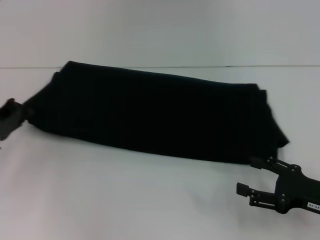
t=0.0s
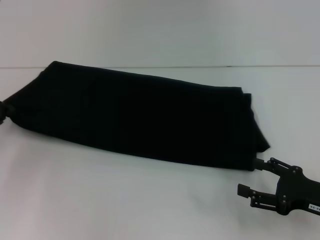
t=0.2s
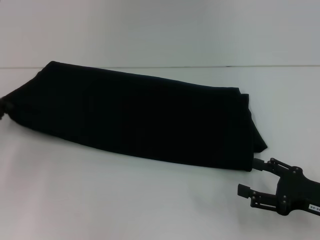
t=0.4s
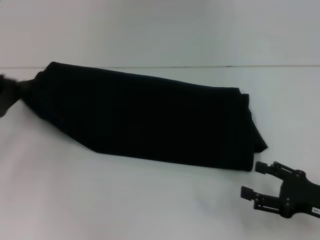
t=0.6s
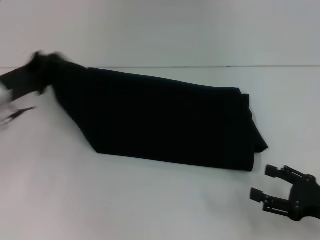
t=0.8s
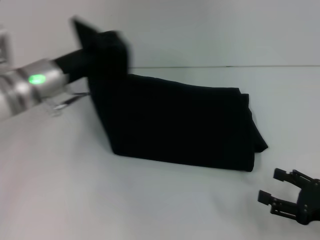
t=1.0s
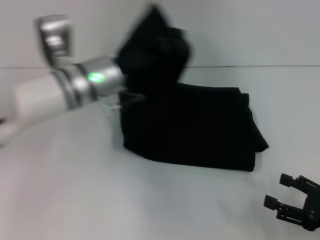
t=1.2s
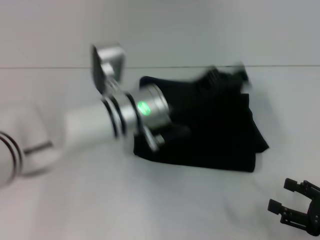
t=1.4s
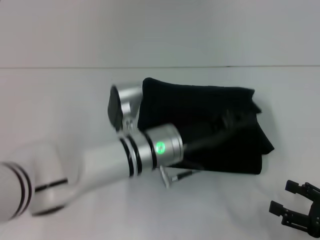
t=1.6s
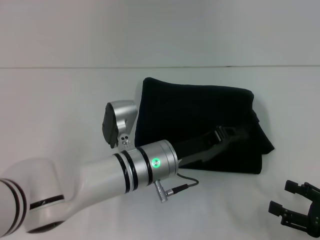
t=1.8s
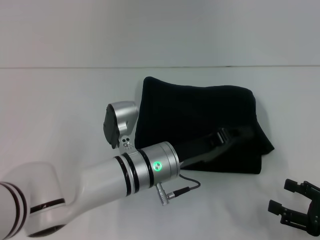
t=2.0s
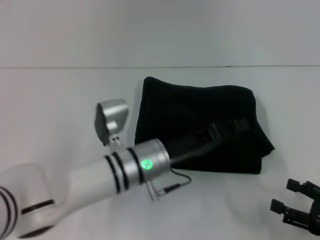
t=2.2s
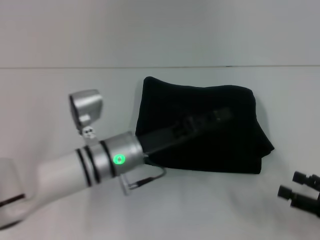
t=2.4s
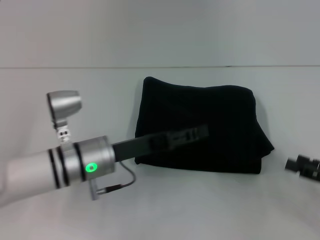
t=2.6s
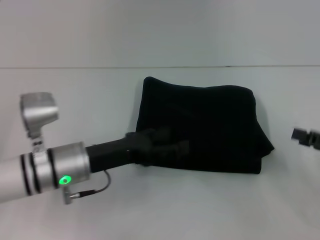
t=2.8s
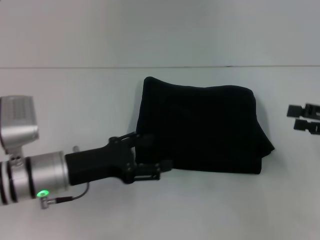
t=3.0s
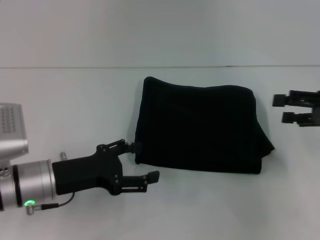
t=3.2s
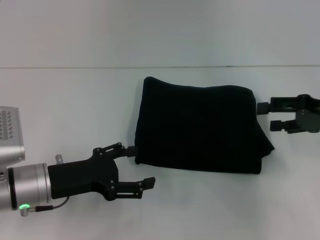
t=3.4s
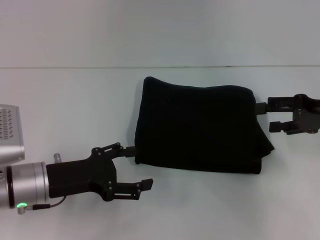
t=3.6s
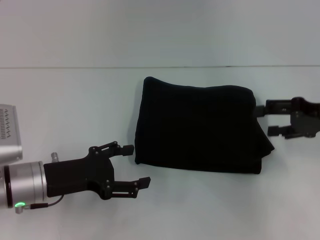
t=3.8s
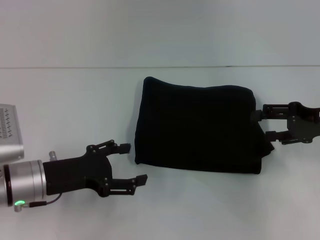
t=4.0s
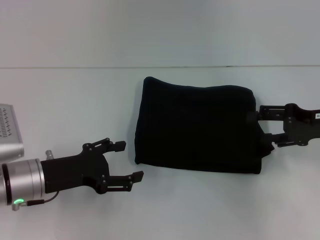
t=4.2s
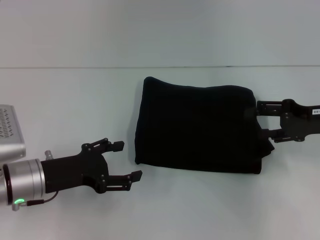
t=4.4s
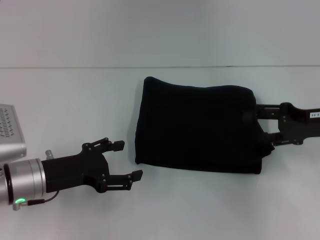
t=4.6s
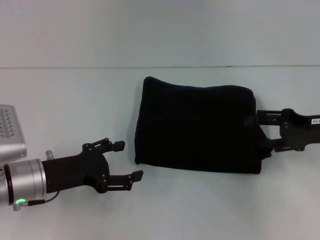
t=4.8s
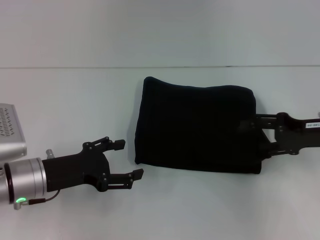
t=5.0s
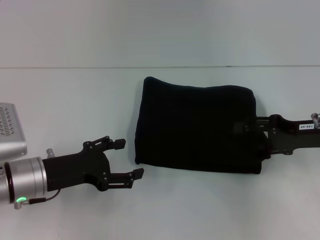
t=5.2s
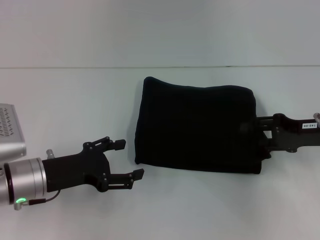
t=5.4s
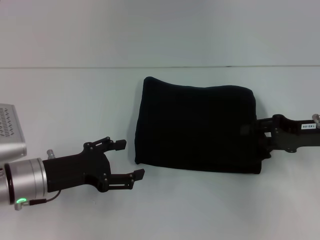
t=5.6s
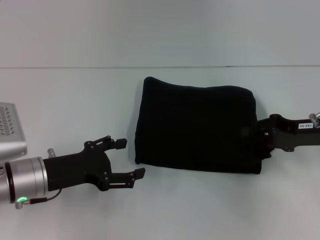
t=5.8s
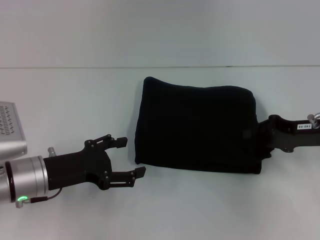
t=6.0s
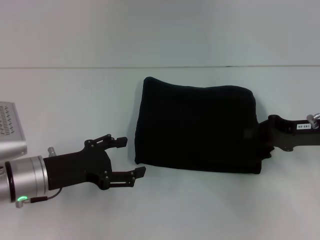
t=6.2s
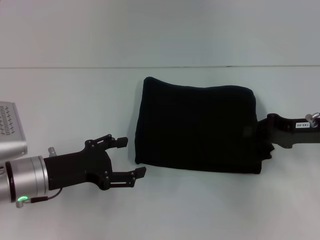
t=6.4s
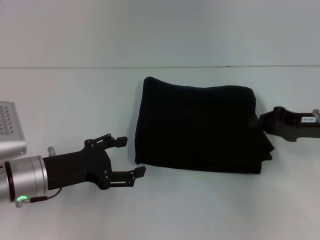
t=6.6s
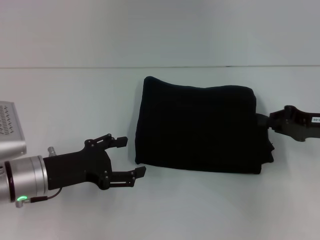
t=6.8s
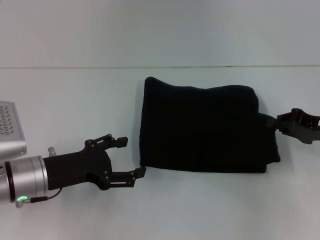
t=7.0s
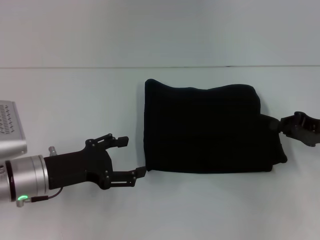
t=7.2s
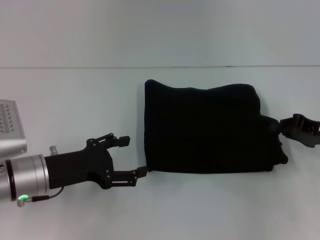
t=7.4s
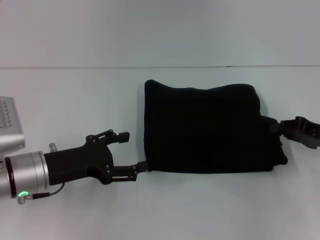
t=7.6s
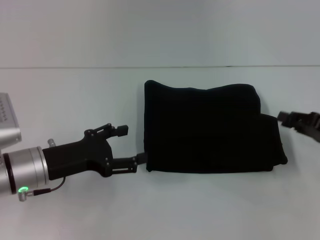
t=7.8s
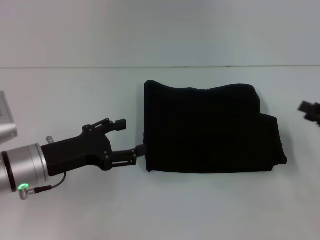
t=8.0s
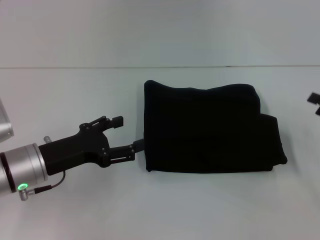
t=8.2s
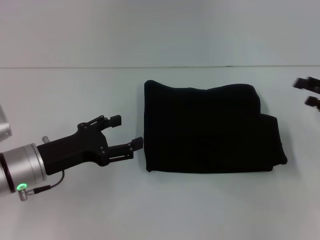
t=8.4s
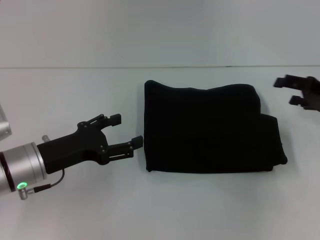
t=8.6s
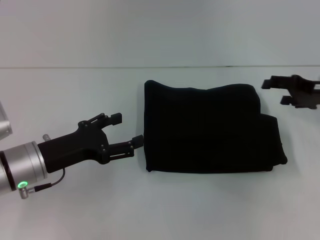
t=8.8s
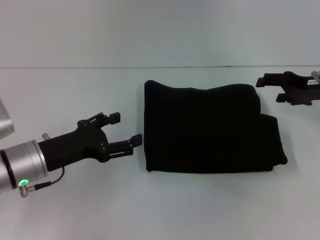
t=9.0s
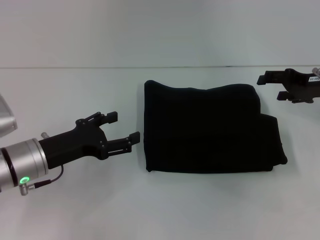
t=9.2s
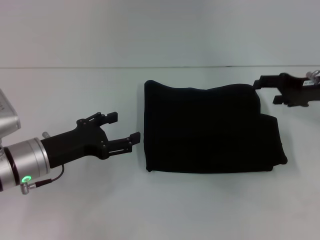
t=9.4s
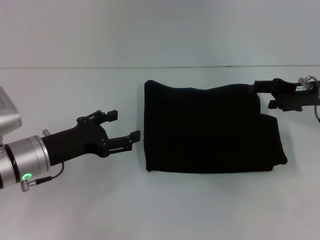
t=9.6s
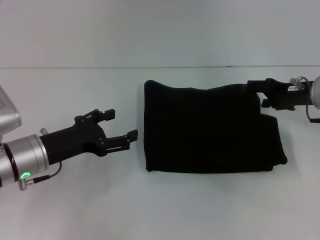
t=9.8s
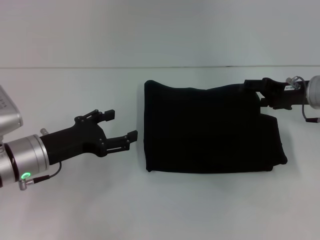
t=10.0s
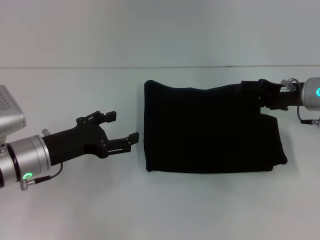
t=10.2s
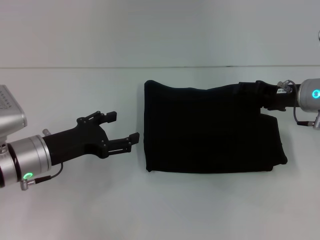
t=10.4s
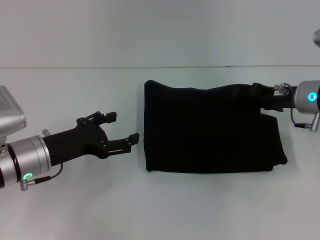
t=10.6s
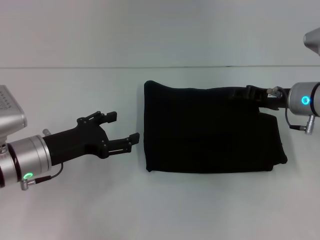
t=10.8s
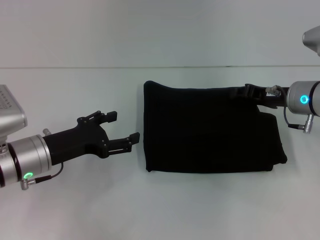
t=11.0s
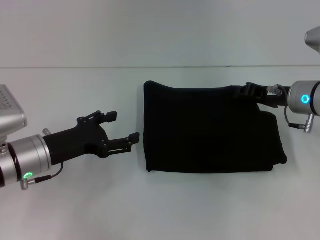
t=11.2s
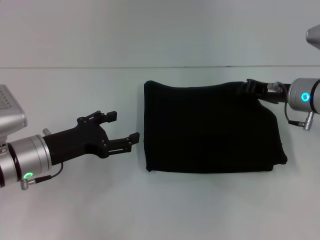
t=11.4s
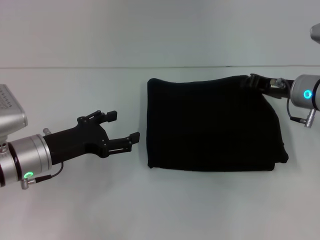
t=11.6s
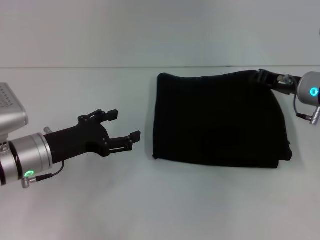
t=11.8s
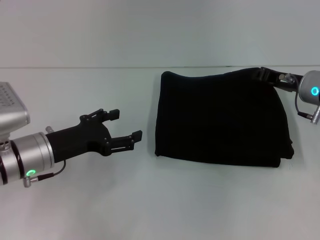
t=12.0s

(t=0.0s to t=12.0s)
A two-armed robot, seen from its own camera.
Step, t=0.0s - t=2.0s: Fold the clothes with your left hand.
t=0.0s - t=1.6s: The left gripper goes approximately 30 cm to the right. The right gripper moves some 5 cm.
t=1.6s - t=3.0s: The left gripper goes roughly 15 cm to the left, and opens. Meanwhile the right gripper is displaced forward and upward by roughly 15 cm.
t=3.0s - t=4.4s: The right gripper heads to the left, covering approximately 5 cm.
t=4.4s - t=6.0s: The right gripper closes up.
t=6.0s - t=7.6s: The grippers make only small movements.
t=7.6s - t=9.0s: The right gripper moves forward and upward, approximately 10 cm, and opens its fingers.
t=9.0s - t=10.4s: The right gripper changes place by about 5 cm.
t=10.4s - t=12.0s: The right gripper closes up.

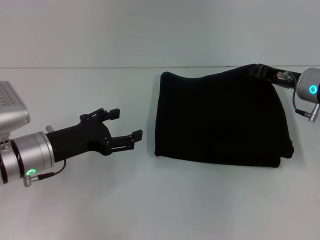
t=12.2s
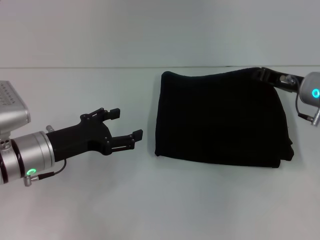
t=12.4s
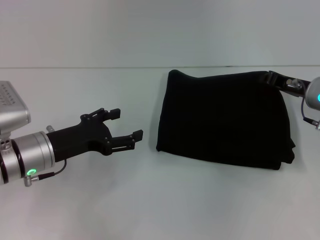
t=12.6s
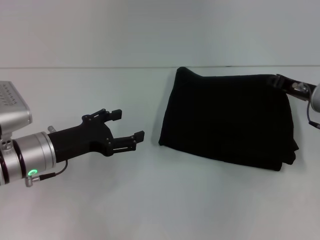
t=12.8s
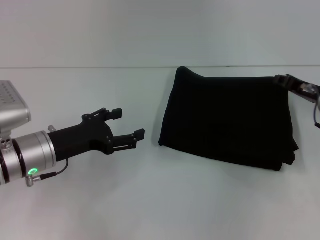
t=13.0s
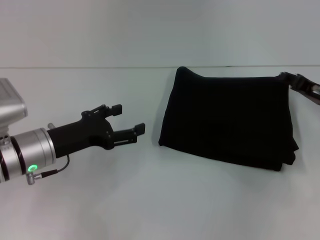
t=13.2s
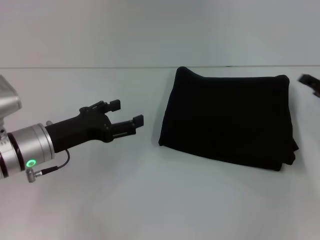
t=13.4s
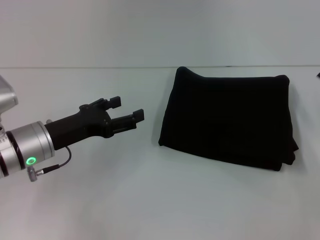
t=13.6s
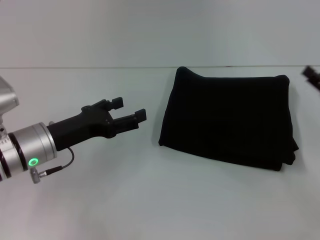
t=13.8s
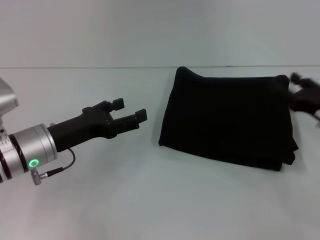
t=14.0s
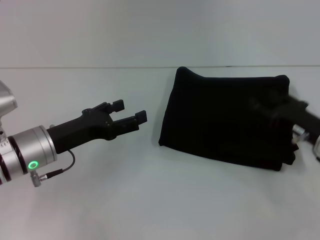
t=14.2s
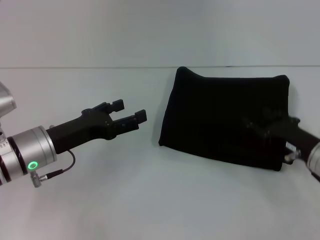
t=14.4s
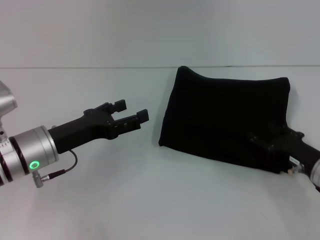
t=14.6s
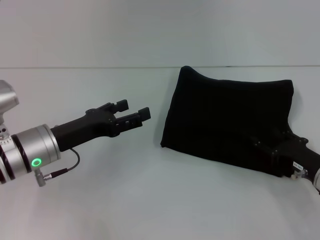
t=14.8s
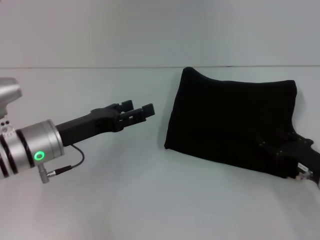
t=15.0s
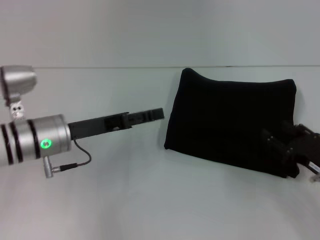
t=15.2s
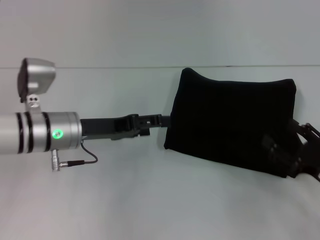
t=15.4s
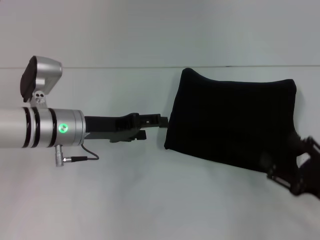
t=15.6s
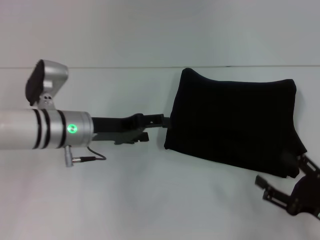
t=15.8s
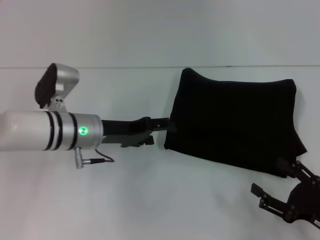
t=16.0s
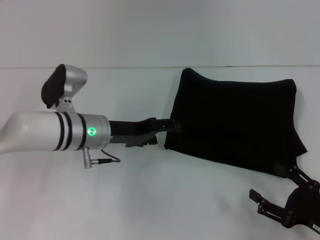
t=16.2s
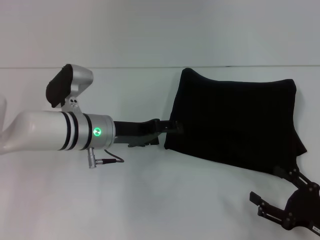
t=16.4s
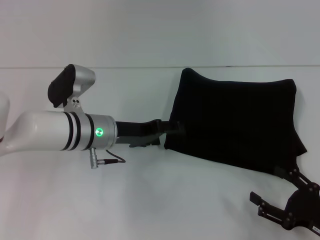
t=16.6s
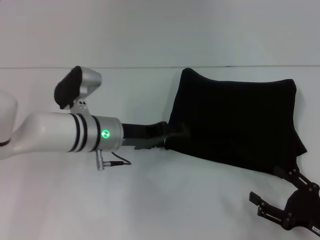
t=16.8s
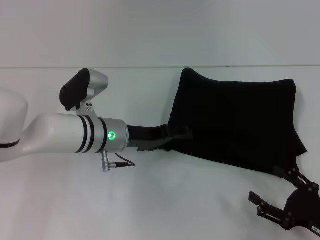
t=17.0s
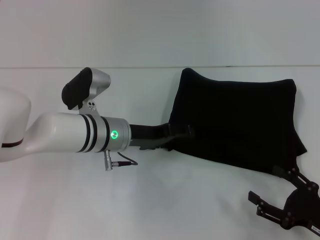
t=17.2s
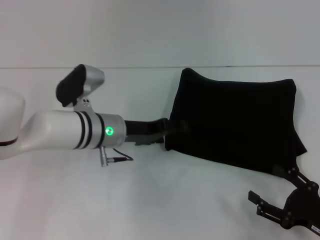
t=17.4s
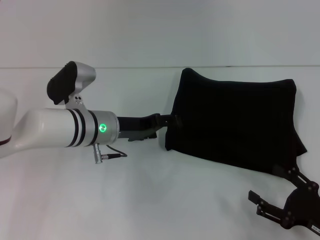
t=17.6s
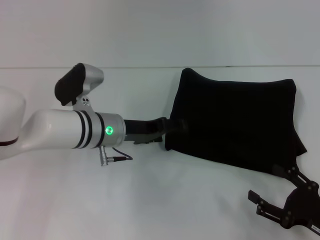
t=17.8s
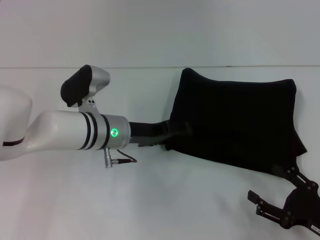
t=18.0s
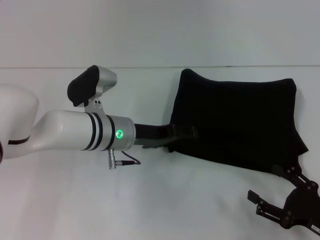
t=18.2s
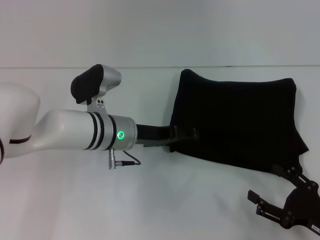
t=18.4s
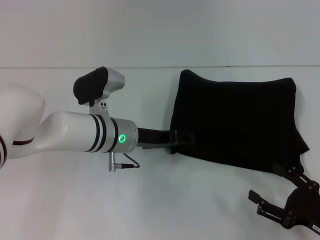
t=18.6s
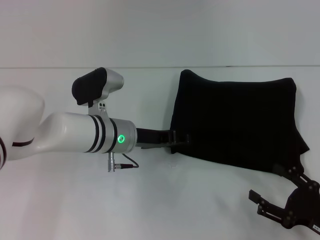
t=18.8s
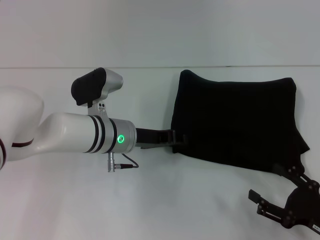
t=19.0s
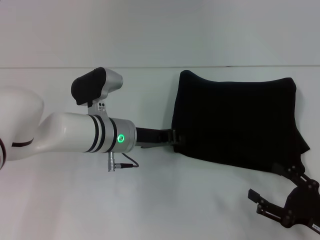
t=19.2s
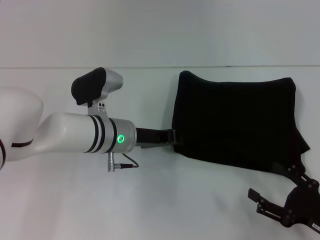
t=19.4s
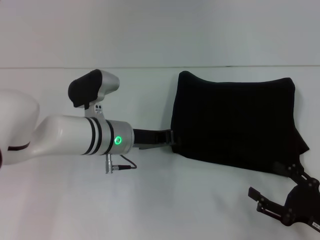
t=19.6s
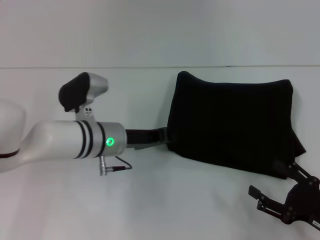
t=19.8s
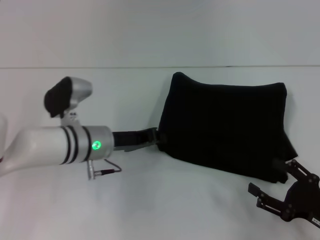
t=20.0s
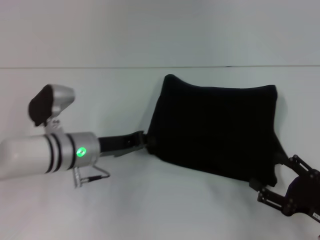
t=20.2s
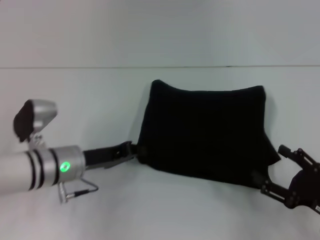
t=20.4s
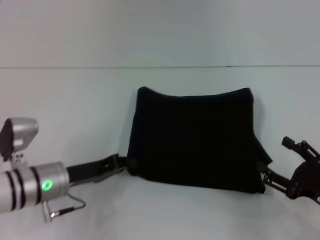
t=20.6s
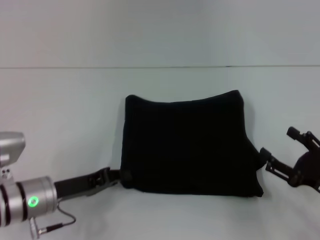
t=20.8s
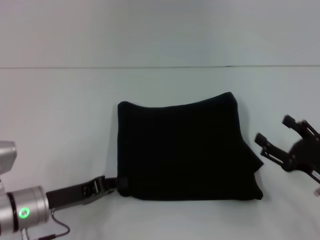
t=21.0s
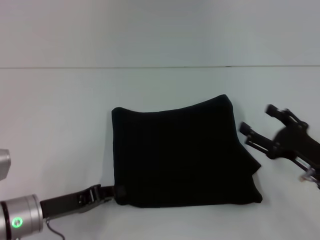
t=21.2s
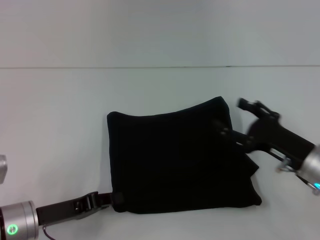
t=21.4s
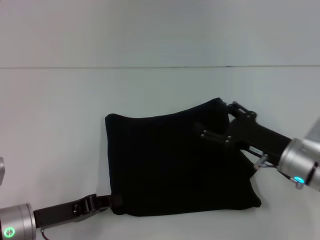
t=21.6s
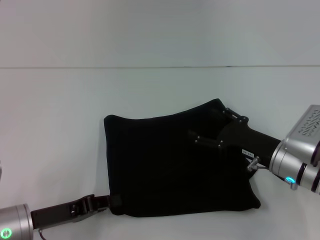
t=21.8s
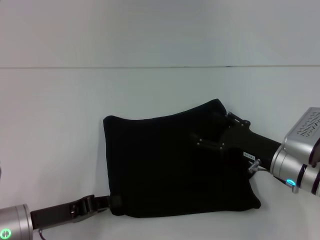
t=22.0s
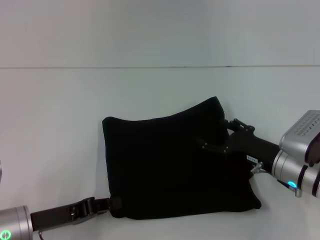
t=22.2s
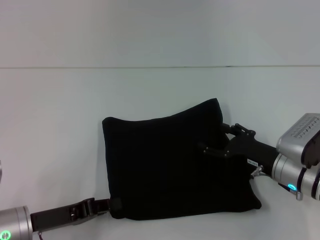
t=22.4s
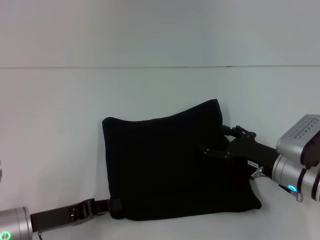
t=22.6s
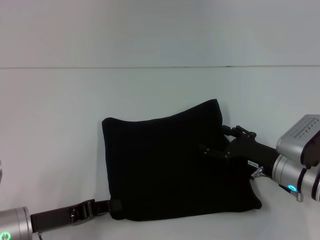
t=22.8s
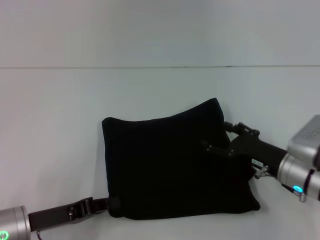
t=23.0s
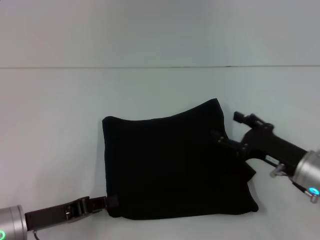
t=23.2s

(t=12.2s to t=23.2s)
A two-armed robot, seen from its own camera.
t=12.2s - t=13.8s: The right gripper shifts about 15 cm backward and to the right, and opens.
t=13.8s - t=15.4s: The left gripper changes place by approximately 5 cm, while the right gripper goes approximately 10 cm backward and downward.
t=15.4s - t=17.0s: The left gripper moves to the right, about 5 cm, while the right gripper goes approximately 5 cm backward.
t=17.0s - t=18.4s: There are only small adjustments of the grippers.
t=18.4s - t=20.0s: The left gripper closes up.
t=20.0s - t=21.6s: The right gripper is displaced forward and to the left by some 15 cm, while the left gripper heads backward and to the left, covering some 15 cm.
t=21.6s - t=23.2s: The grippers make only small movements.
